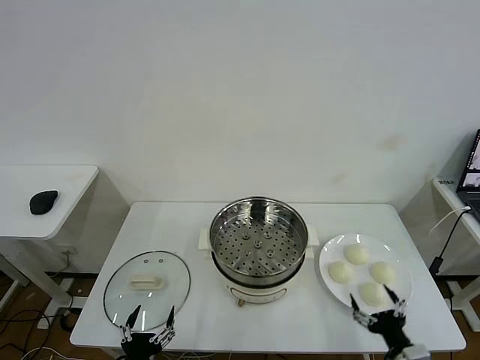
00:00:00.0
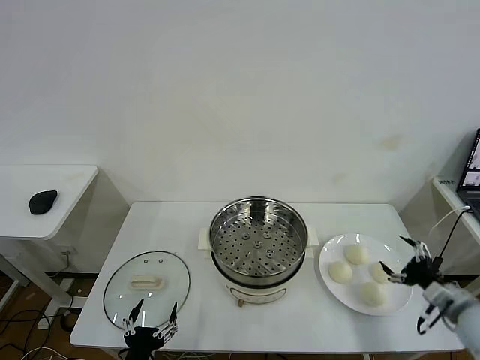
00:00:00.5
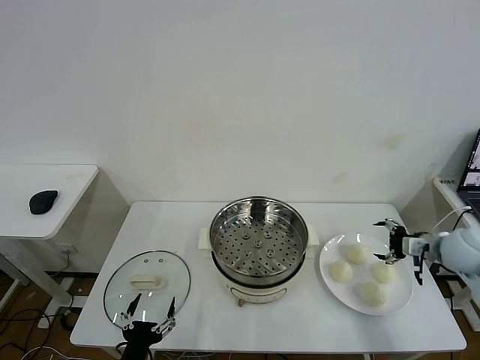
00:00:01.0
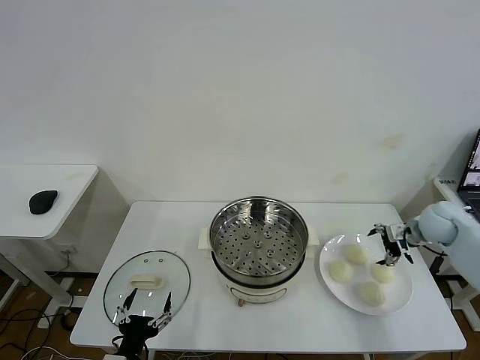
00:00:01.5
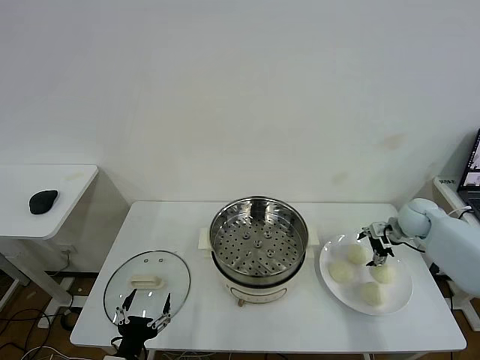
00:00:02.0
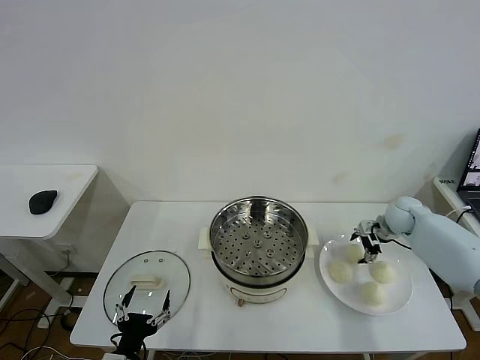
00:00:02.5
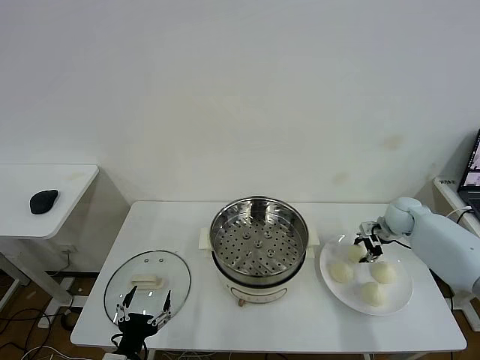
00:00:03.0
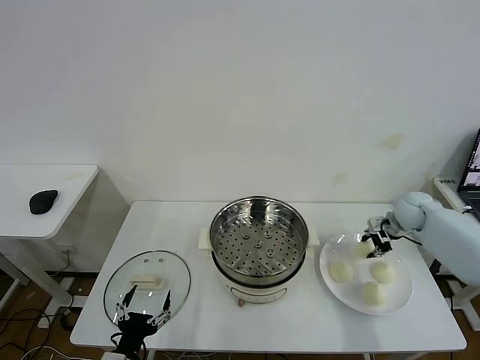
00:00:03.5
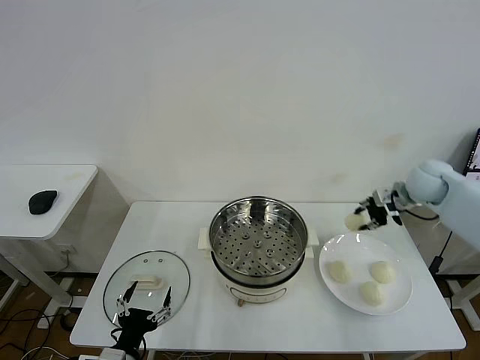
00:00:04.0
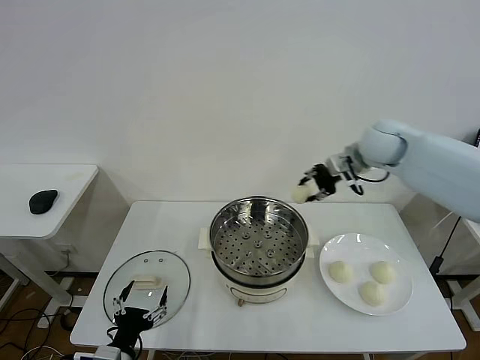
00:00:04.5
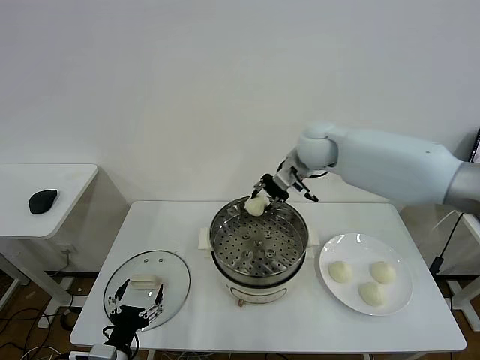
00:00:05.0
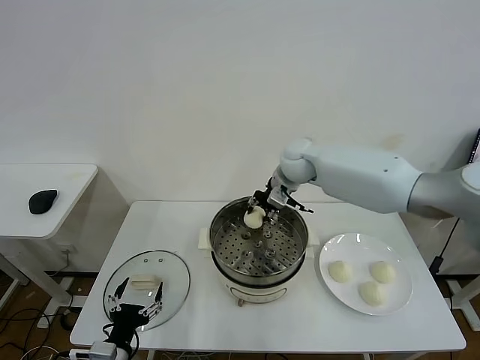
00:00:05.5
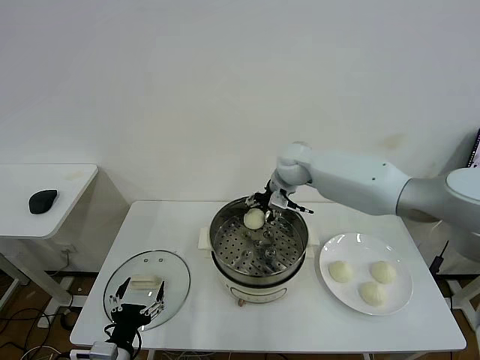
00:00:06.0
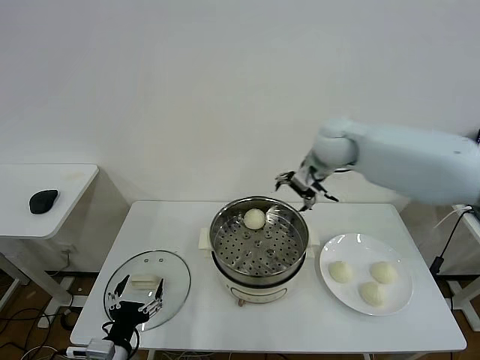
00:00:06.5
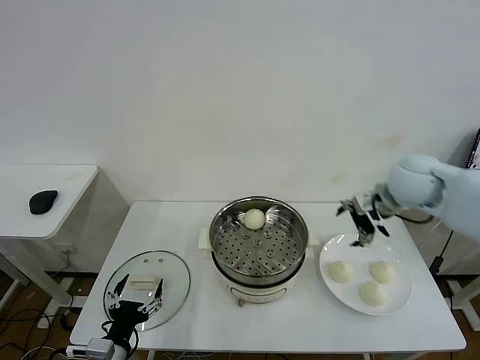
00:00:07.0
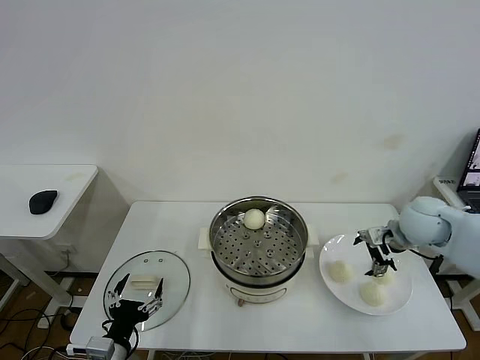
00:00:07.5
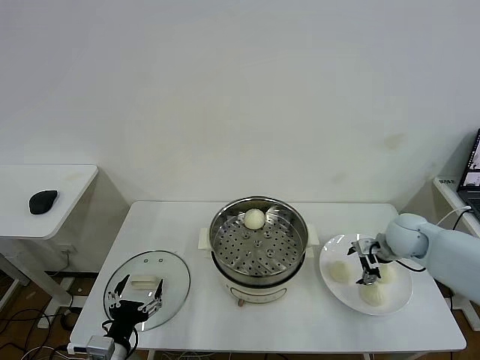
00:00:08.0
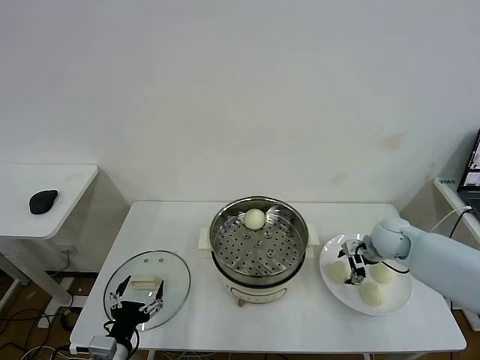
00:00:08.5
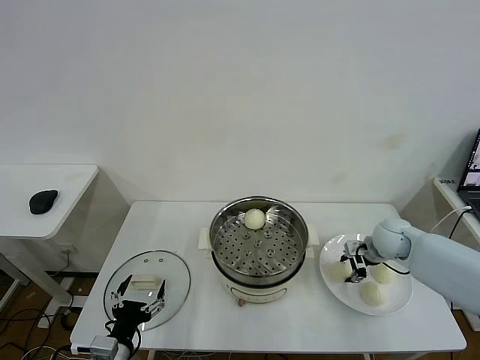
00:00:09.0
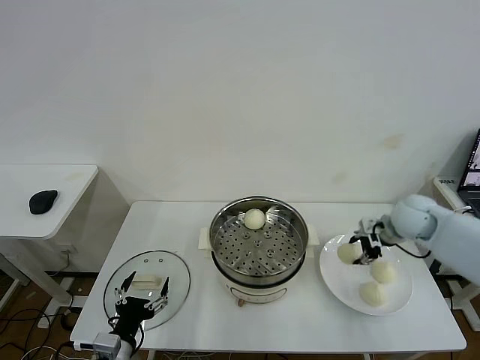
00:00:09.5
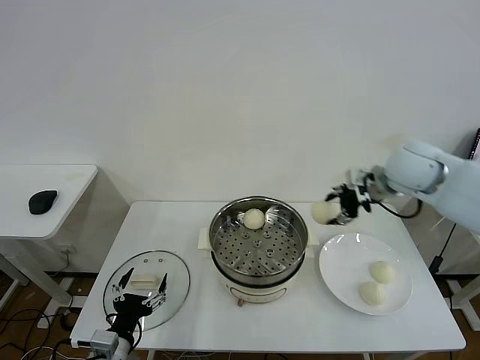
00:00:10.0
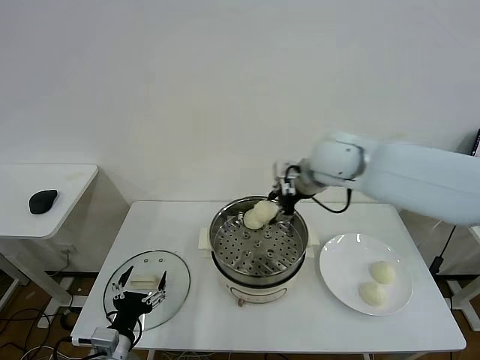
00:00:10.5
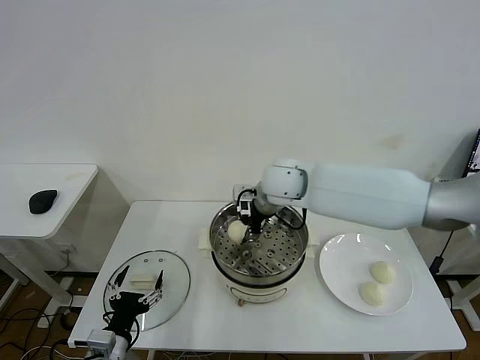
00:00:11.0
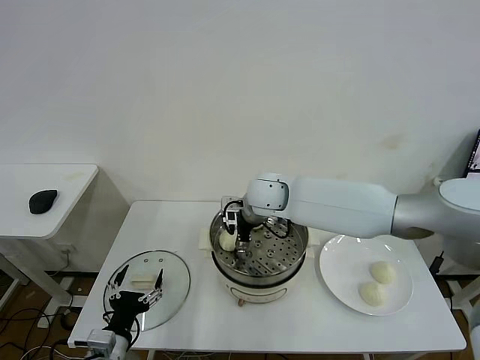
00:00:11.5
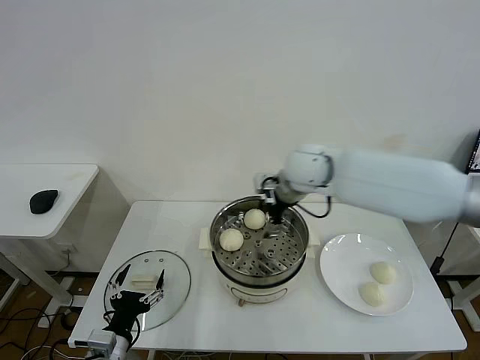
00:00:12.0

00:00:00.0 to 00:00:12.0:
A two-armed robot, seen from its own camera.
Task of the whole recording: take steamed baozi put them in steamer then cover it.
Step, 00:00:00.0 to 00:00:02.5: Grasp the baozi in the plate with right gripper.
Step, 00:00:03.5 to 00:00:06.0: Place the baozi on the steamer with right gripper.
Step, 00:00:06.5 to 00:00:08.5: Grasp the baozi in the plate with right gripper.
Step, 00:00:09.0 to 00:00:11.5: Place the baozi on the steamer with right gripper.
00:00:02.0 to 00:00:04.0: The right gripper is displaced upward by about 15 cm, and closes its fingers.
00:00:04.0 to 00:00:06.0: The right gripper travels to the left by roughly 25 cm, and opens up.
00:00:06.0 to 00:00:08.0: The right gripper shifts roughly 30 cm to the right, downward and backward.
00:00:08.0 to 00:00:10.0: The right gripper heads upward and to the left, covering roughly 25 cm, and closes its fingers.
00:00:10.0 to 00:00:12.0: The right gripper heads to the left, covering approximately 15 cm, and opens.

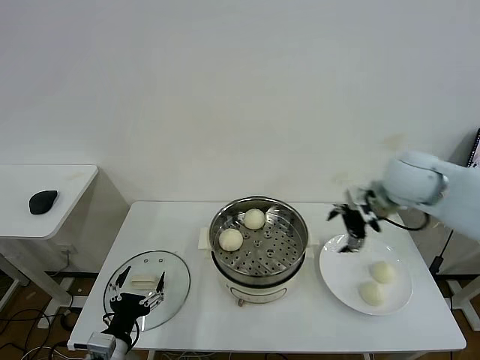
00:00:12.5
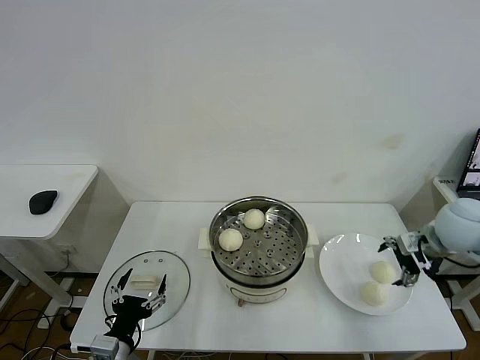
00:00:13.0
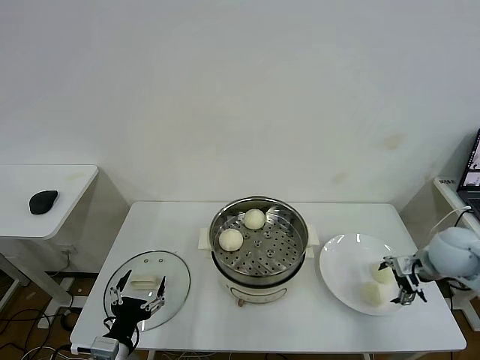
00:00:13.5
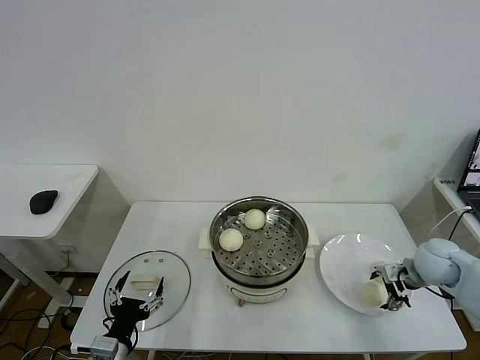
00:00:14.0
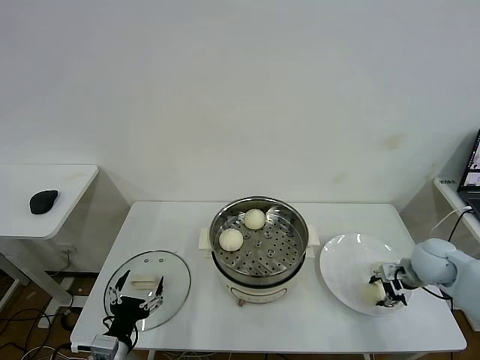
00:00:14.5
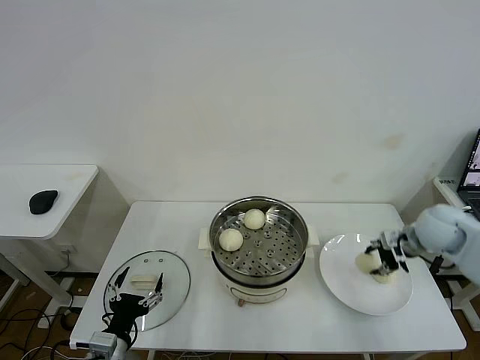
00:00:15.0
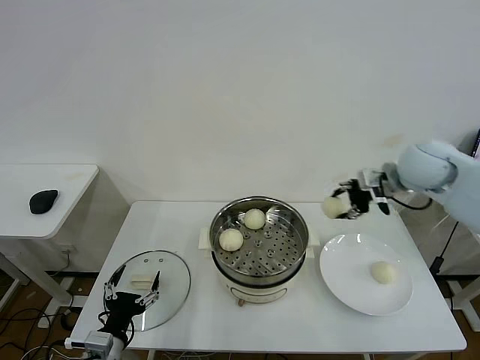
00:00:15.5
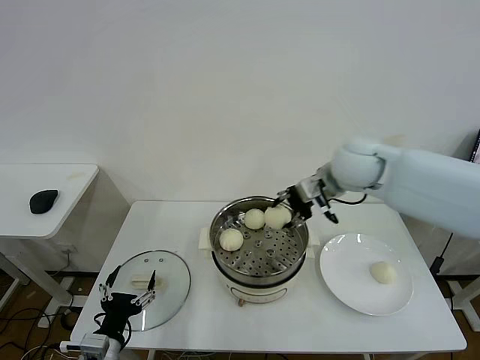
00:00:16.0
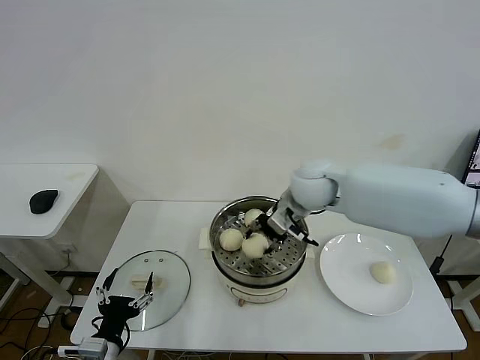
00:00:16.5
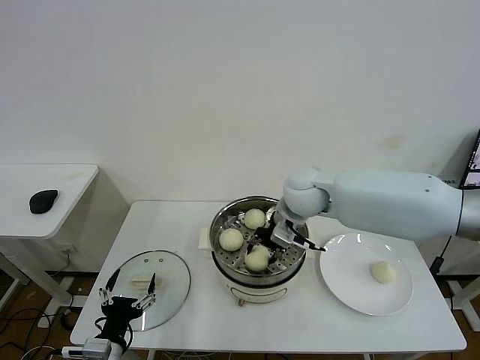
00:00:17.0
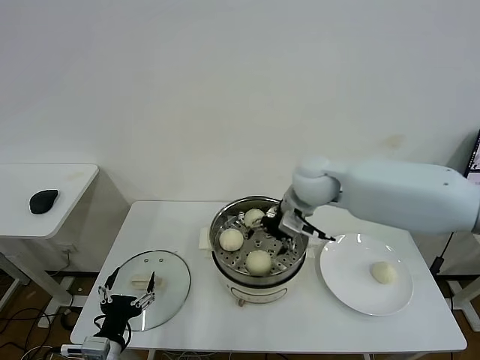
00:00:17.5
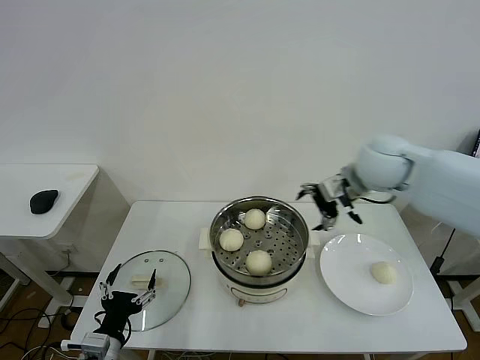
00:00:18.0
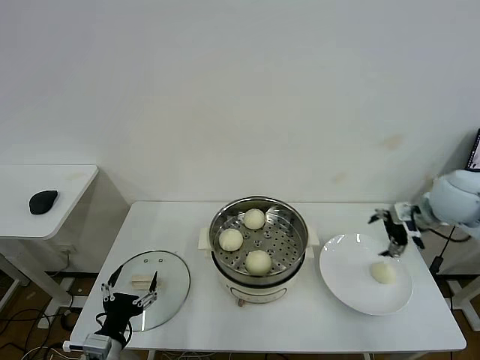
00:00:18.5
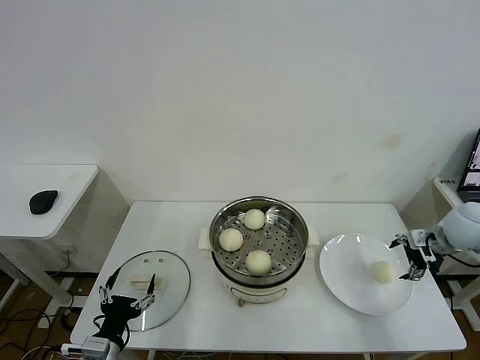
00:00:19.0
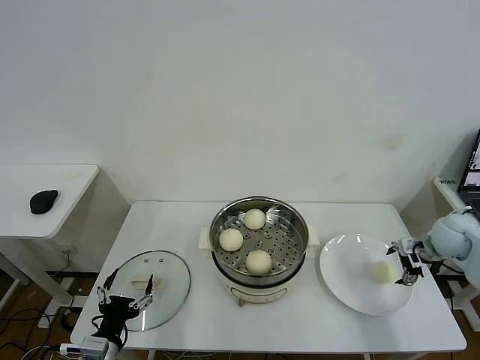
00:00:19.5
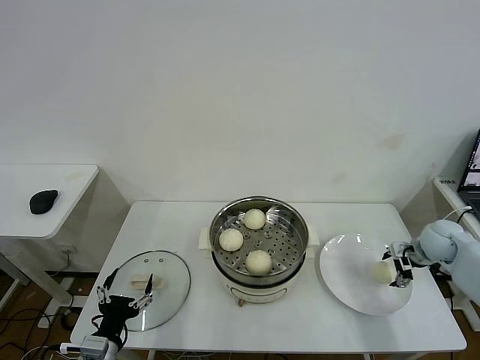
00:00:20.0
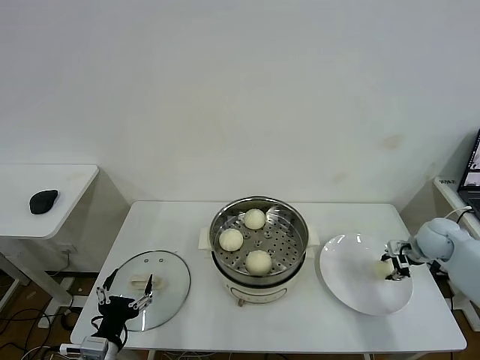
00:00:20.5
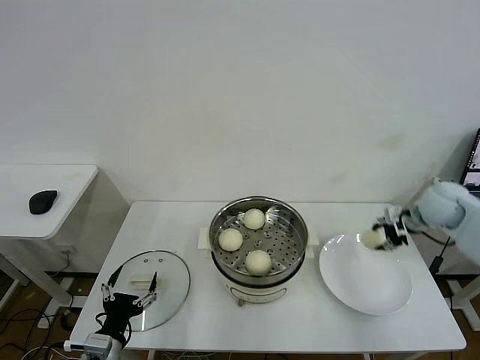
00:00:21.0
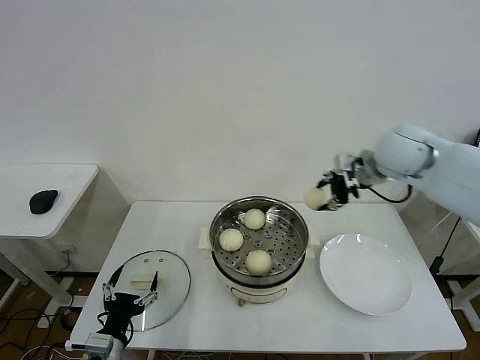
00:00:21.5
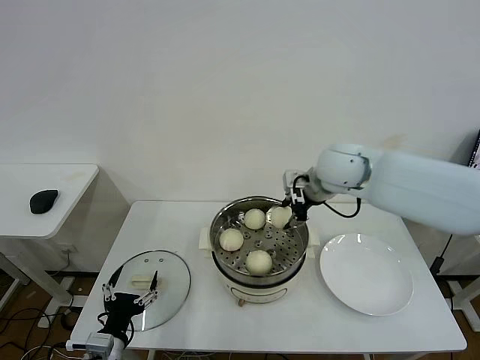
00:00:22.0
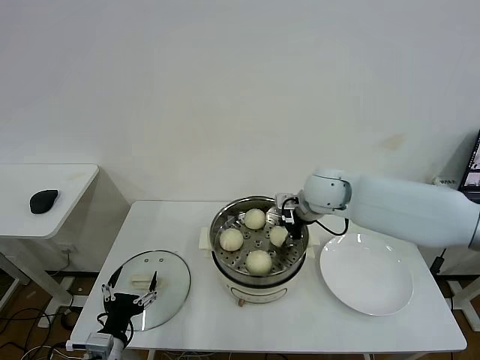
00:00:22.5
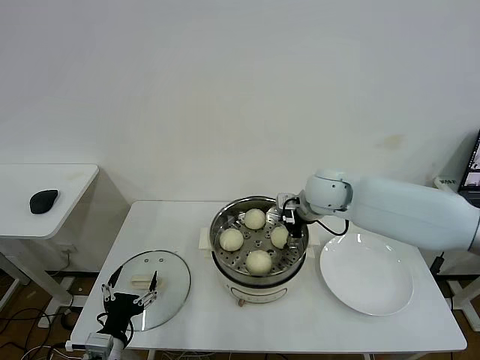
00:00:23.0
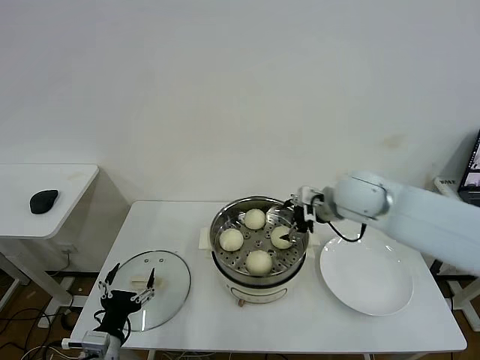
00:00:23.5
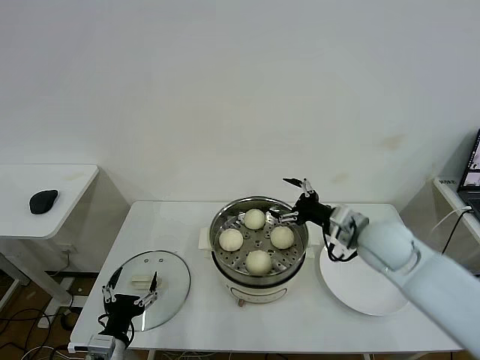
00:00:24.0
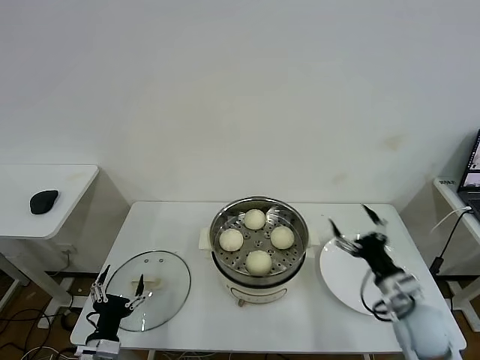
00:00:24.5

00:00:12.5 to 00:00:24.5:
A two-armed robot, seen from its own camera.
Task of the whole recording: take steamed baozi put them in steamer then cover it.
Step, 00:00:12.5 to 00:00:14.0: Grasp the baozi in the plate with right gripper.
Step, 00:00:14.5 to 00:00:17.0: Place the baozi on the steamer with right gripper.
Step, 00:00:17.5 to 00:00:20.0: Grasp the baozi in the plate with right gripper.
Step, 00:00:20.5 to 00:00:23.0: Place the baozi on the steamer with right gripper.
00:00:12.5 to 00:00:14.5: The right gripper moves downward and to the right, some 20 cm, and closes up.
00:00:14.5 to 00:00:16.5: The right gripper goes about 35 cm to the left and upward.
00:00:16.5 to 00:00:18.5: The right gripper shifts some 30 cm to the right, and opens its fingers.
00:00:18.5 to 00:00:20.5: The right gripper shifts some 15 cm downward, and closes.
00:00:20.5 to 00:00:22.5: The right gripper moves to the left and upward, approximately 35 cm.
00:00:22.5 to 00:00:24.5: The right gripper moves backward, to the right and downward, some 30 cm, and opens up.

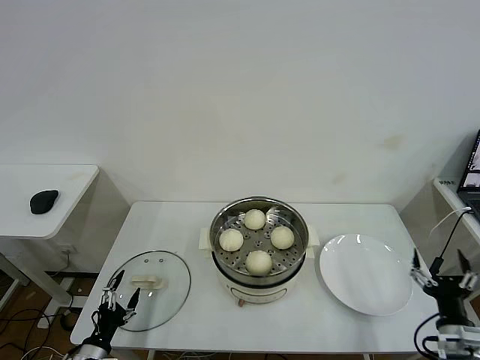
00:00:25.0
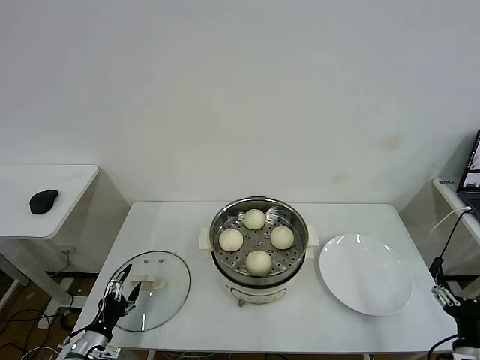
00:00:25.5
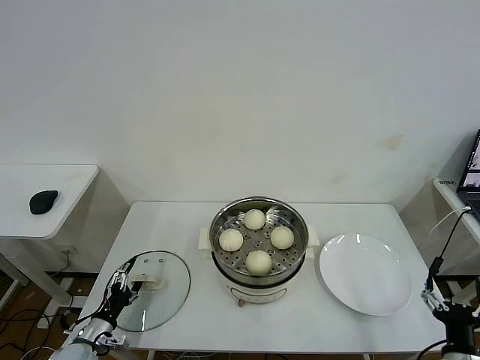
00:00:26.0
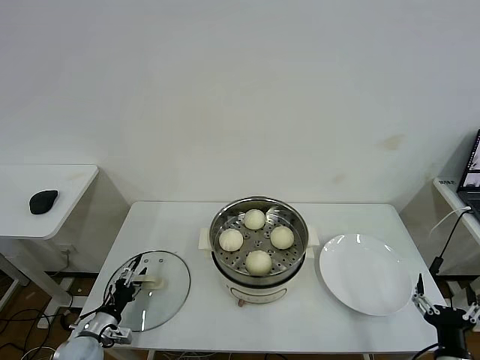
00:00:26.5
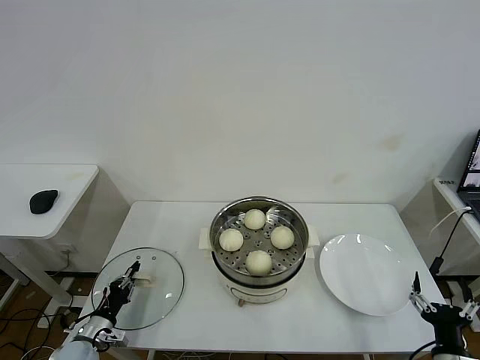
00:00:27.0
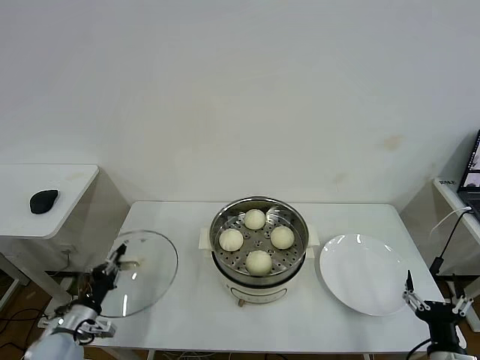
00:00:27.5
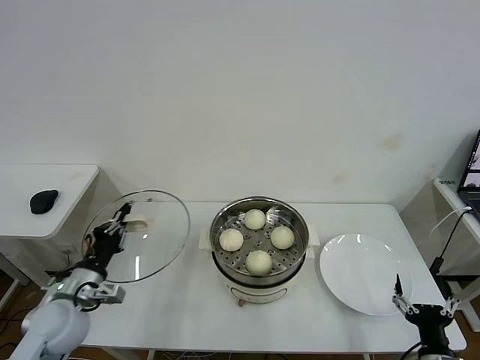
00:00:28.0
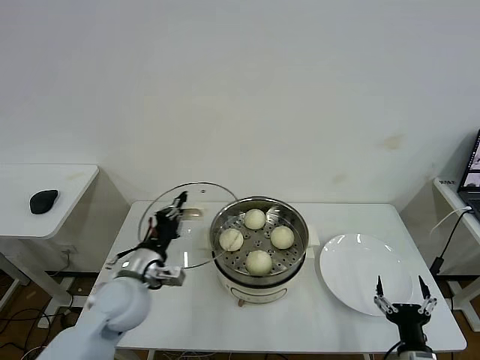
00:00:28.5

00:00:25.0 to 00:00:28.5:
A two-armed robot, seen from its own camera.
Task of the whole recording: take steamed baozi put them in steamer then cover it.
Step, 00:00:25.0 to 00:00:27.0: Grasp the pot lid with left gripper.
00:00:25.0 to 00:00:27.0: The left gripper travels forward by some 10 cm, and closes its fingers. The right gripper shifts by roughly 5 cm.
00:00:27.0 to 00:00:28.5: The left gripper travels upward and to the right by approximately 25 cm.